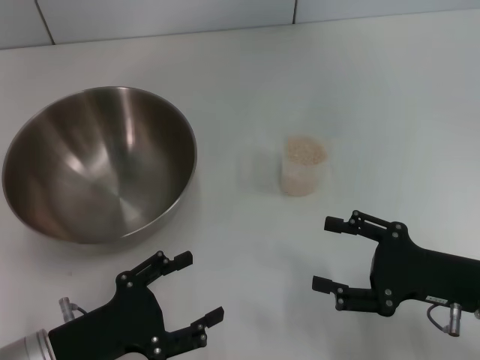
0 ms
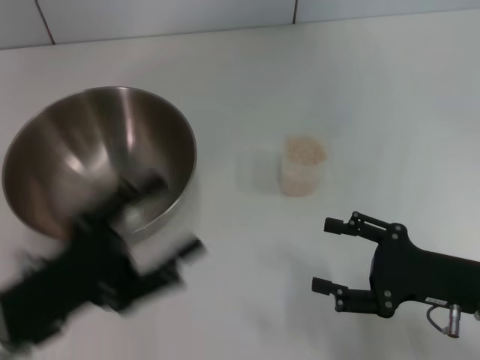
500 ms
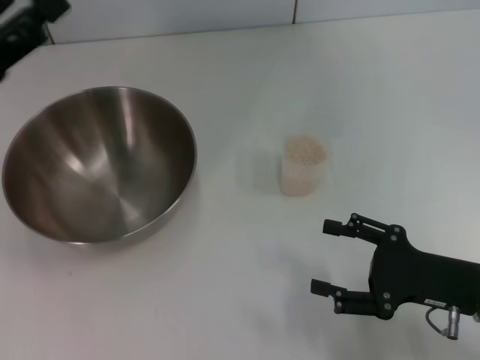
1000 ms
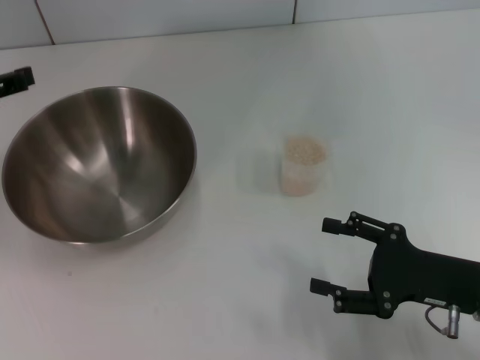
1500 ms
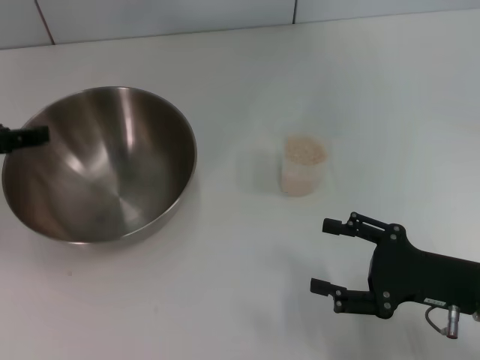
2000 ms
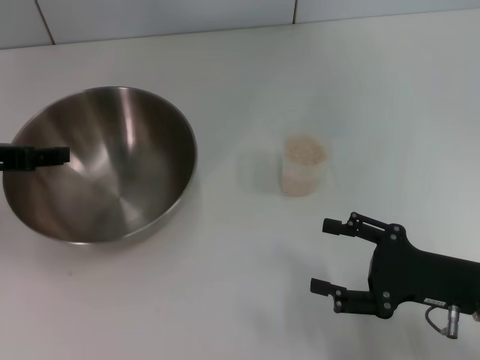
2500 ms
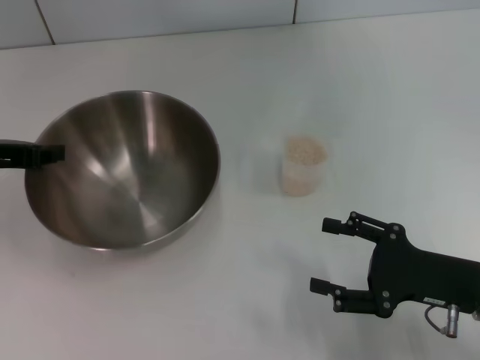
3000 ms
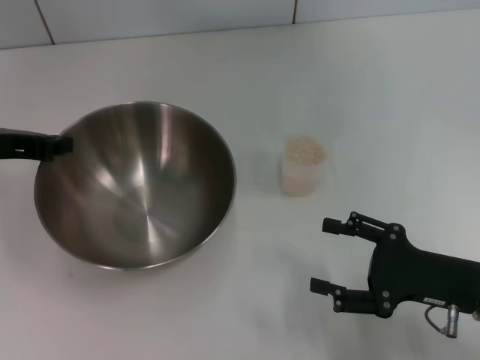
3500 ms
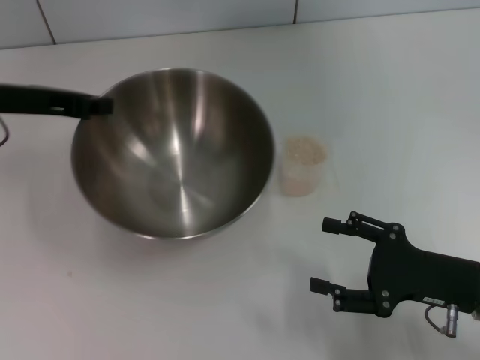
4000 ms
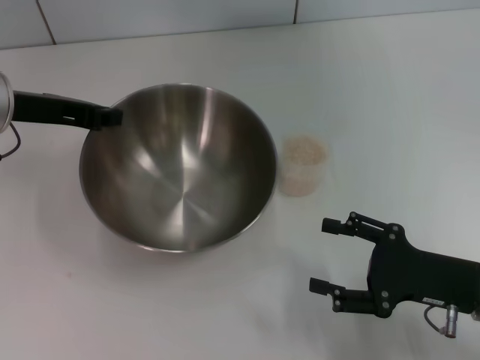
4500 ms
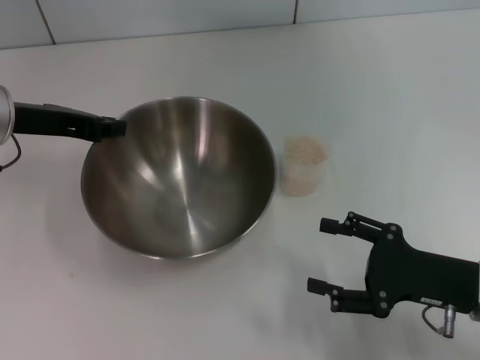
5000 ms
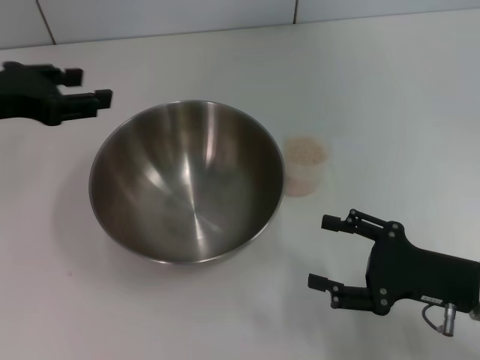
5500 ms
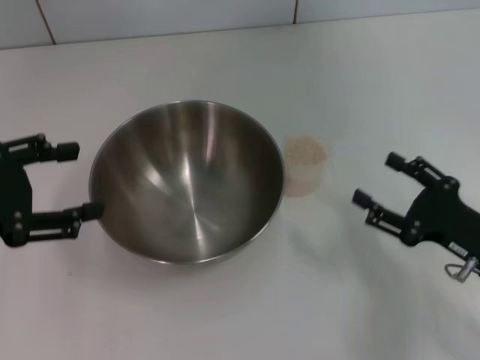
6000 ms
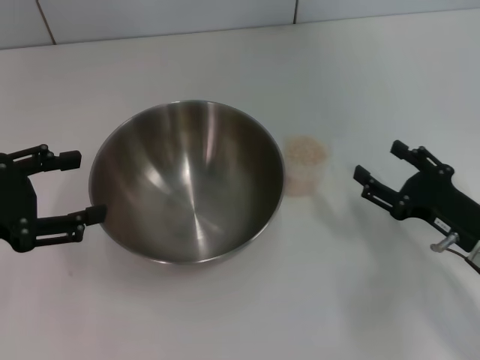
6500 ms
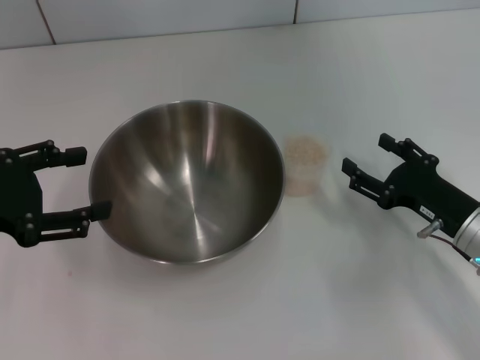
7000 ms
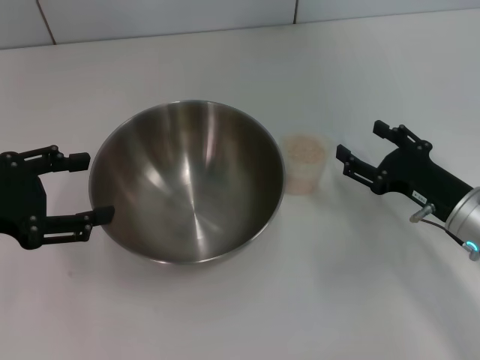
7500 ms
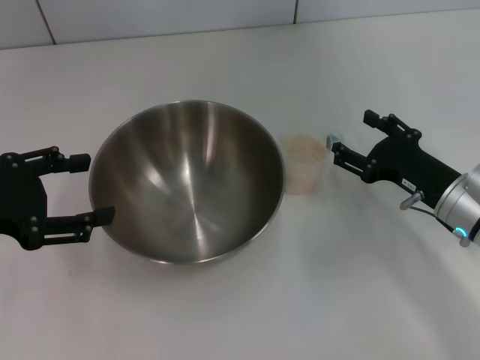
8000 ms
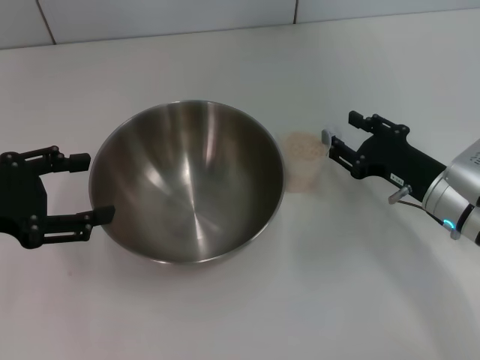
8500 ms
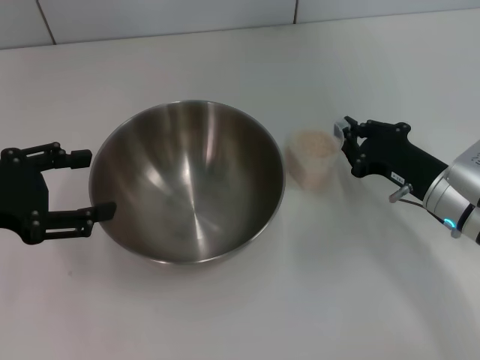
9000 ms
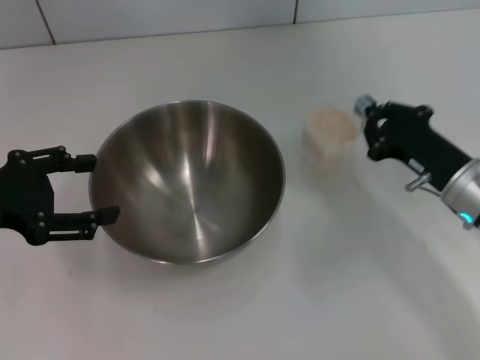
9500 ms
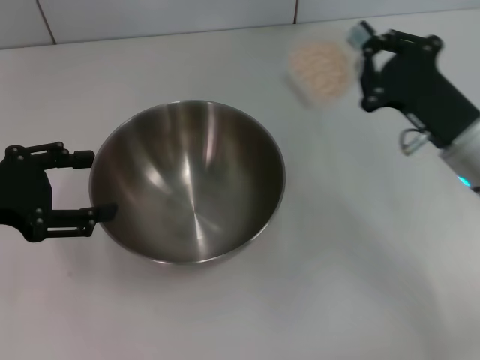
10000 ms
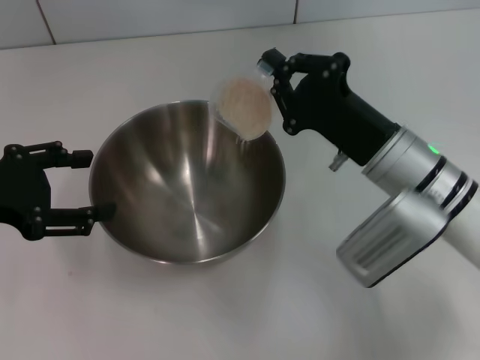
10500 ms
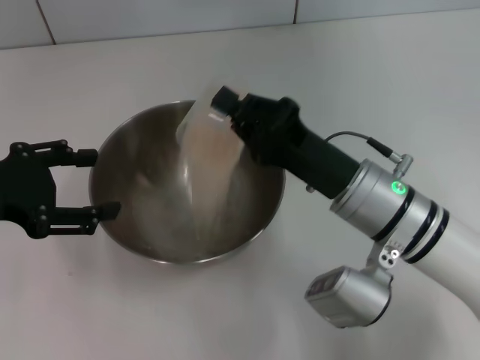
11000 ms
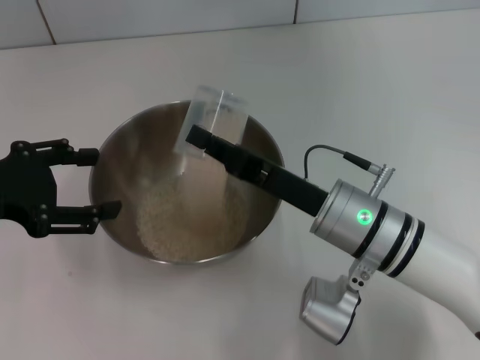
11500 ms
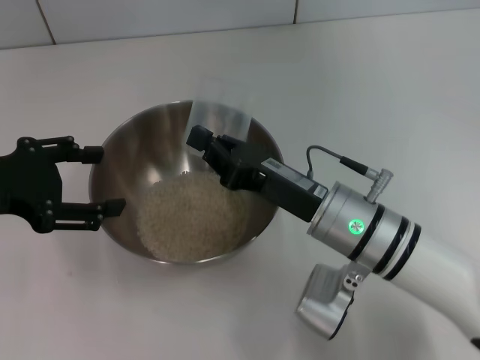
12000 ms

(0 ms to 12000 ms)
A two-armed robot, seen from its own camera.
Task of the whole recording: Place the bowl in the middle of the table with one hand and pour the rice from the grain cup into it with the other hand.
Step, 0 ms - 3500 ms: Pick up the bowl with the left gripper.
Step, 4000 ms - 5000 ms: Place the bowl in the center of view with the left gripper.
Step, 5500 ms - 9500 ms: Pick up the cup with rice in it with the right gripper.
0 ms - 2000 ms: The left gripper moves upward, forward and to the left, some 20 cm.
2000 ms - 4000 ms: The left gripper heads to the right and forward, covering some 10 cm, and closes.
4000 ms - 6000 ms: The left gripper moves backward and to the left, approximately 15 cm, and opens up.
6000 ms - 8000 ms: The right gripper goes some 10 cm forward.
8000 ms - 10000 ms: The right gripper travels upward by approximately 5 cm, and closes up.
10000 ms - 12000 ms: The right gripper travels to the left by approximately 10 cm.

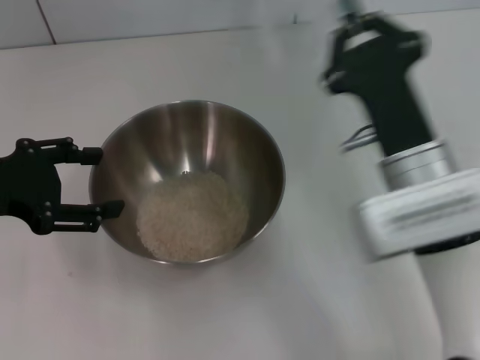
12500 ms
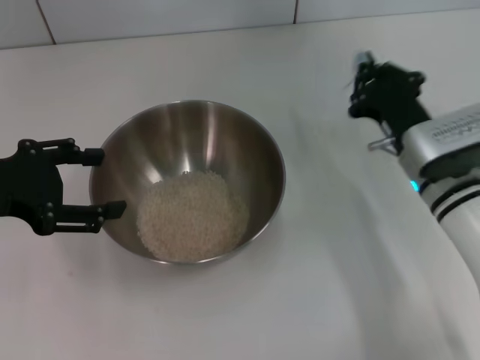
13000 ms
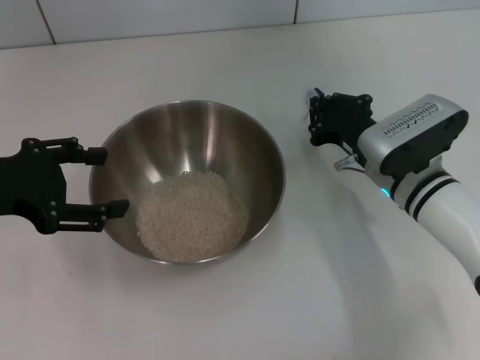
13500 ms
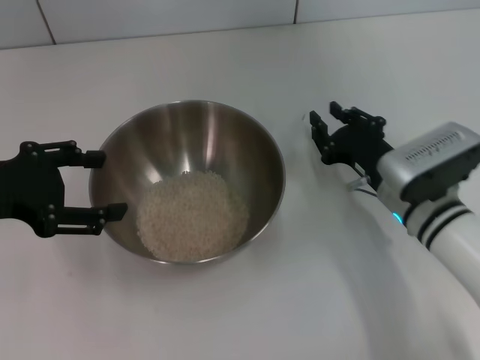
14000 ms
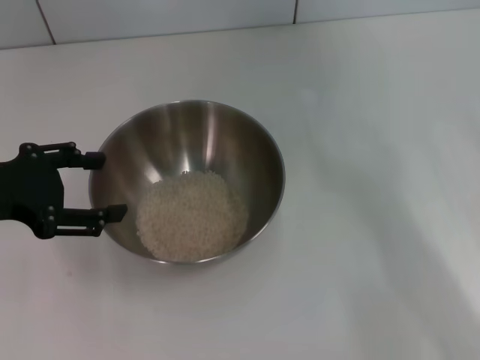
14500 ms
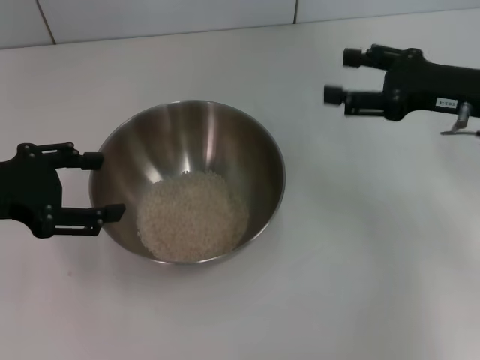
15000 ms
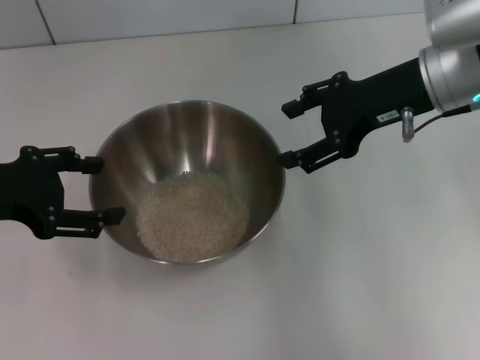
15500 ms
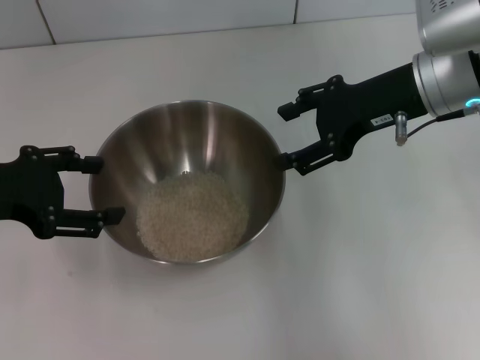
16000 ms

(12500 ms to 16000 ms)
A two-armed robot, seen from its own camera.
Task of the whole recording: Place the bowl in the middle of the table with one hand and pour the rice from the grain cup into it with the other hand.
Step, 12500 ms - 14000 ms: Place the cup on the table with the right gripper.
12500 ms - 14500 ms: The right gripper travels to the right by roughly 15 cm, and opens its fingers.
14500 ms - 16000 ms: The right gripper moves upward, forward and to the left, some 20 cm.

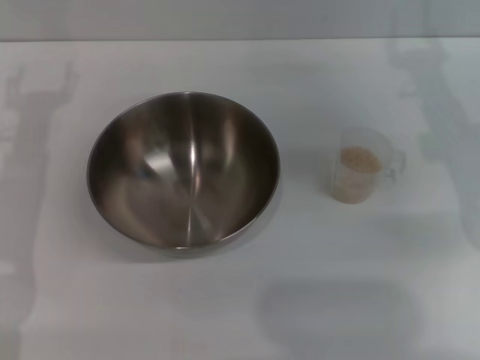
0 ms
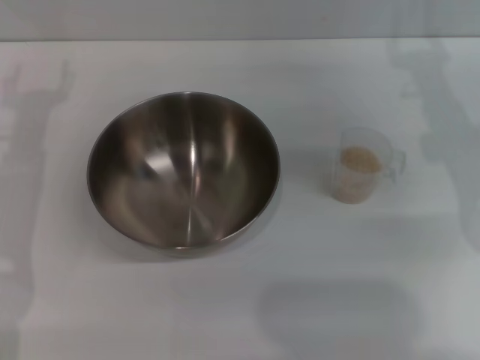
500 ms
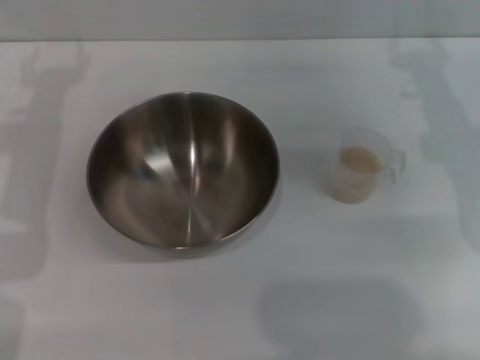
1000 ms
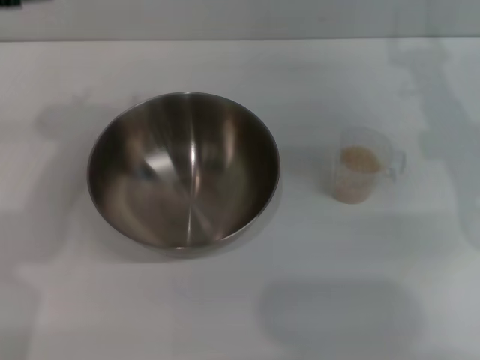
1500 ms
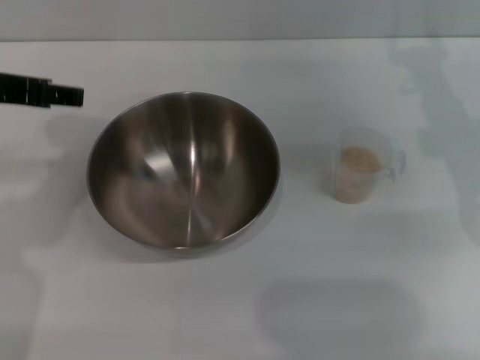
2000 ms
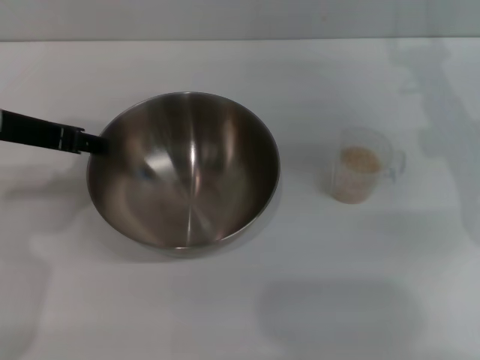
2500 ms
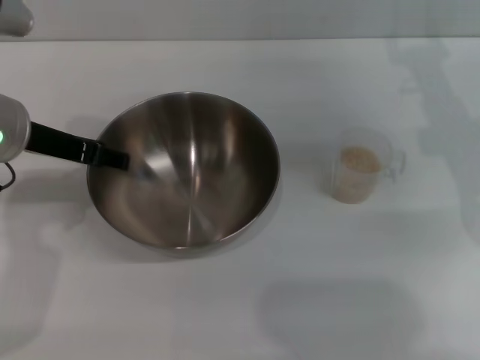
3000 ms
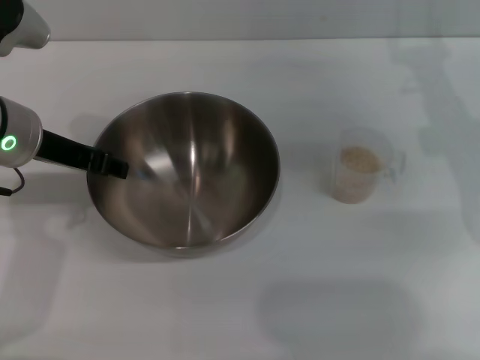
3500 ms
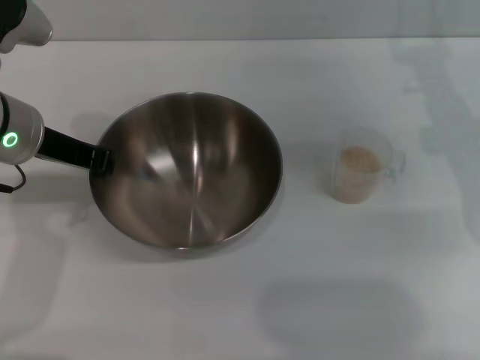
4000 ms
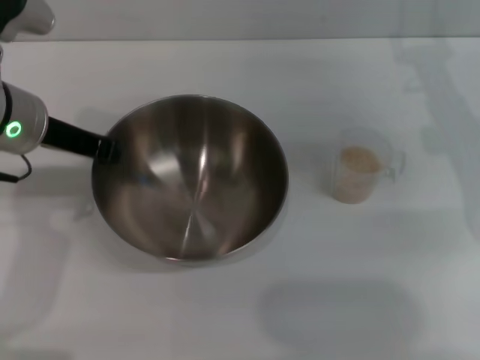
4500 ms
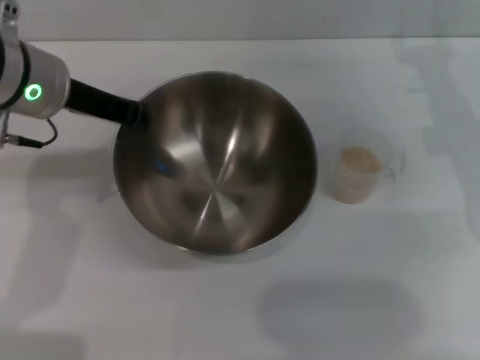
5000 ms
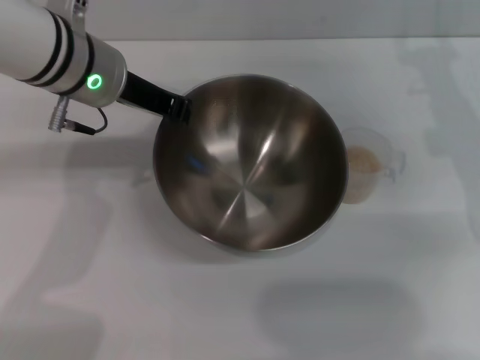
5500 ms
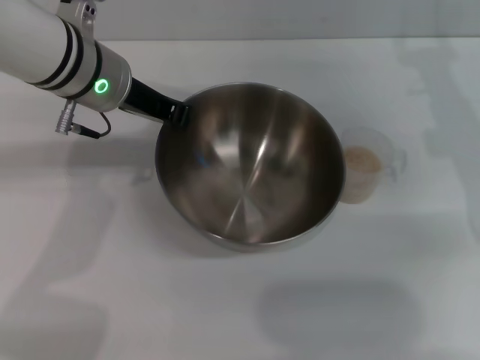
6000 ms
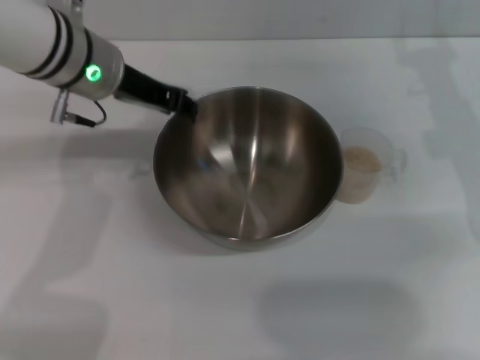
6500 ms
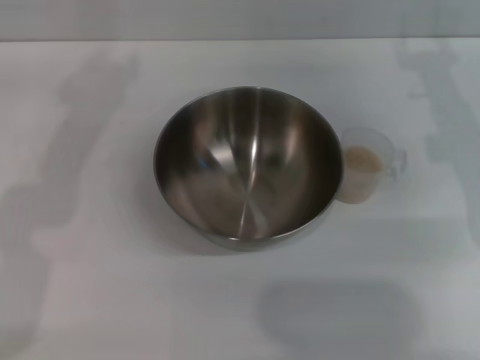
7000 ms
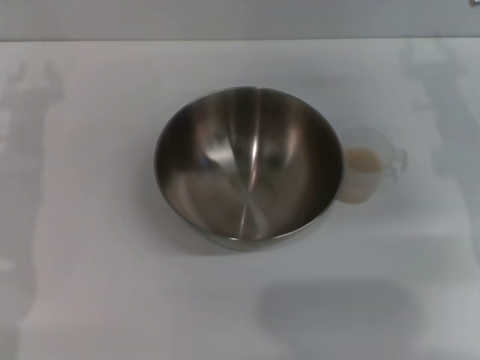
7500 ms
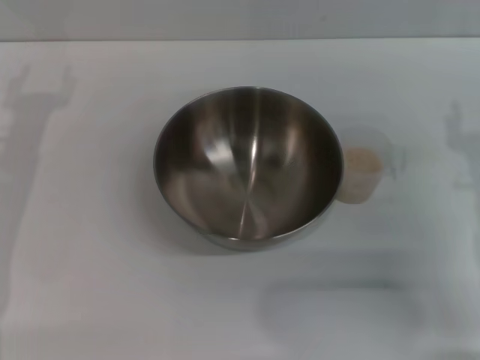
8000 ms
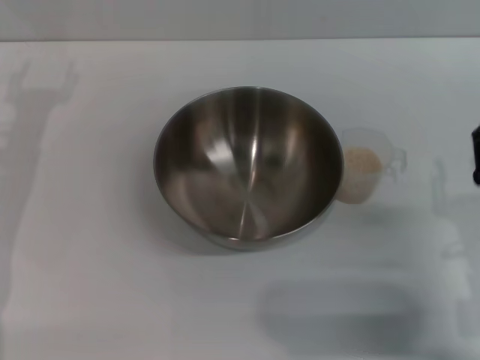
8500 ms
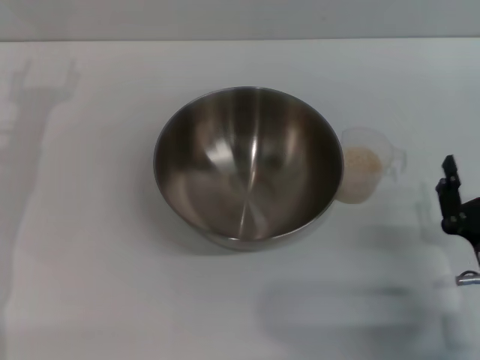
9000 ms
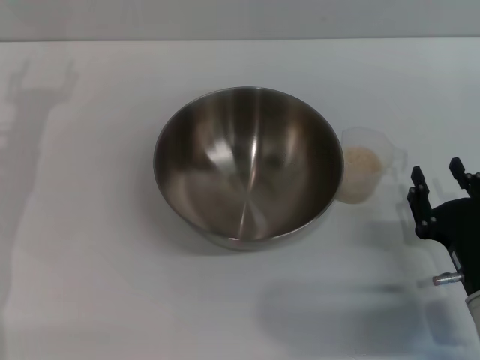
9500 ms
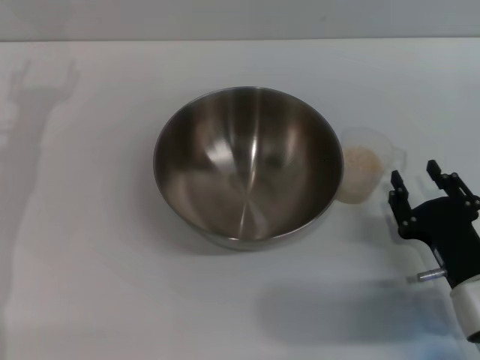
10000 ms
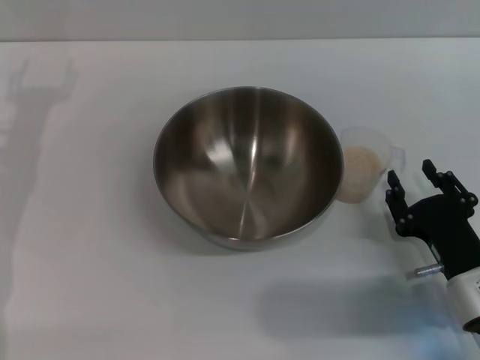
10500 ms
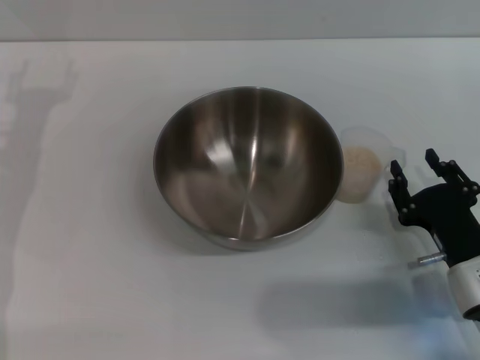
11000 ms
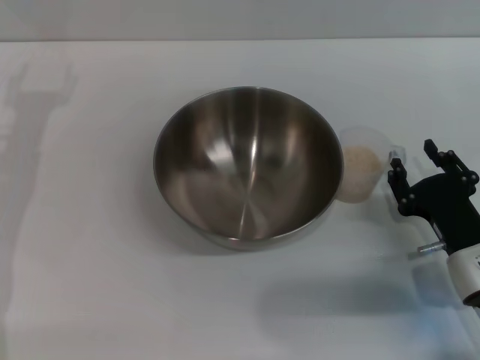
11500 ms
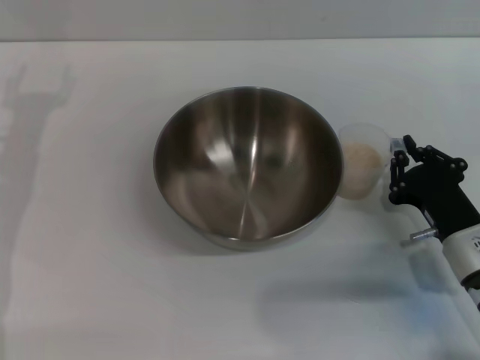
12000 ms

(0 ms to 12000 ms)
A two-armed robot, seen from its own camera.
Task of the whole recording: Place the bowl in the middle of the table with one hand and pour the rice from the grain cup into it with the other hand.
Step, 0 ms - 5000 ms: Pick up the bowl with the left gripper.
Step, 5500 ms - 6500 ms: Place the bowl in the center of view with the left gripper.
0 ms - 2000 ms: The left gripper goes approximately 10 cm upward.
2000 ms - 4000 ms: The left gripper travels downward by approximately 5 cm, and closes its fingers.
4000 ms - 6000 ms: The left gripper goes approximately 10 cm to the right and forward.
6000 ms - 8000 ms: The left gripper moves to the left and backward, roughly 15 cm, and opens its fingers. Meanwhile the right gripper heads backward and downward, covering about 15 cm.
8000 ms - 10000 ms: The right gripper travels downward and backward by approximately 10 cm.
10000 ms - 12000 ms: The grippers make only small movements.
